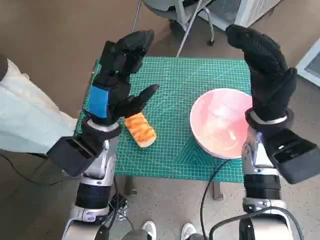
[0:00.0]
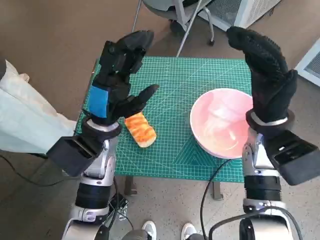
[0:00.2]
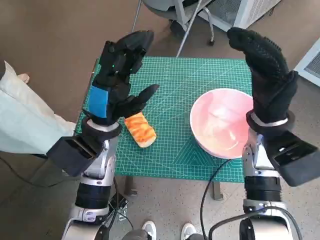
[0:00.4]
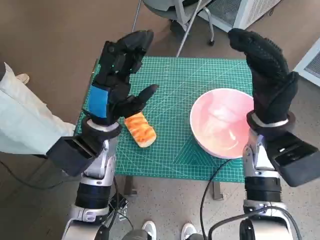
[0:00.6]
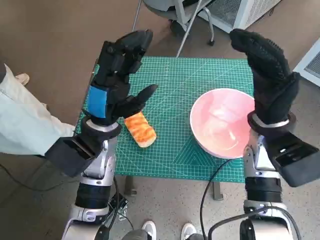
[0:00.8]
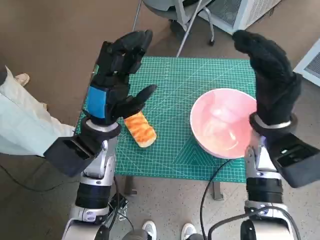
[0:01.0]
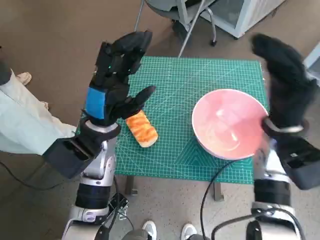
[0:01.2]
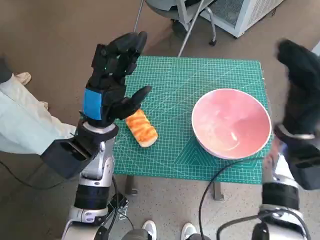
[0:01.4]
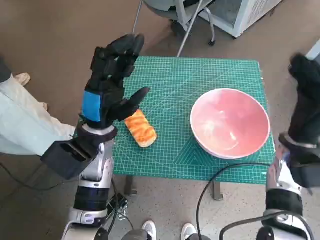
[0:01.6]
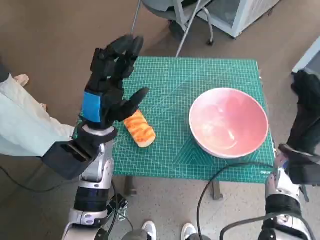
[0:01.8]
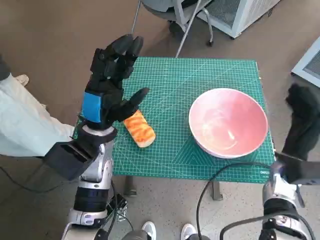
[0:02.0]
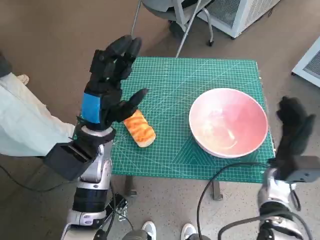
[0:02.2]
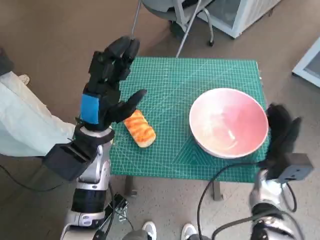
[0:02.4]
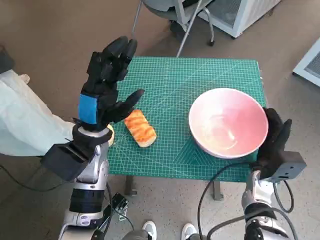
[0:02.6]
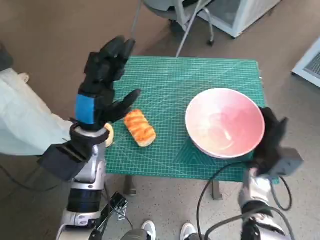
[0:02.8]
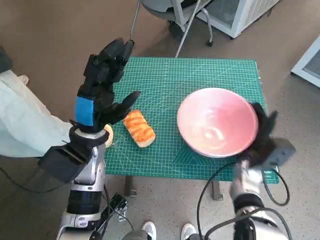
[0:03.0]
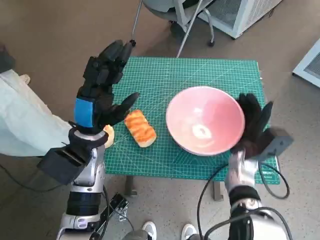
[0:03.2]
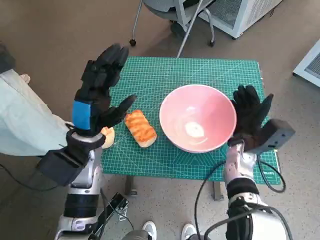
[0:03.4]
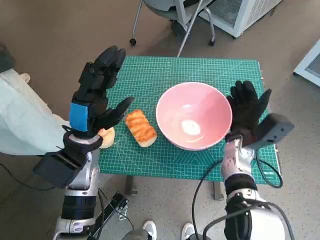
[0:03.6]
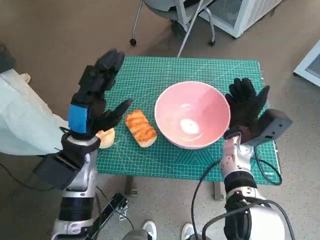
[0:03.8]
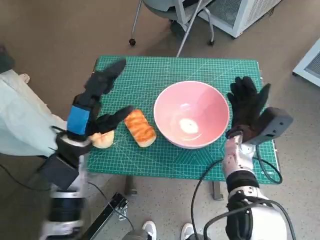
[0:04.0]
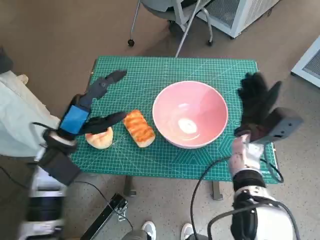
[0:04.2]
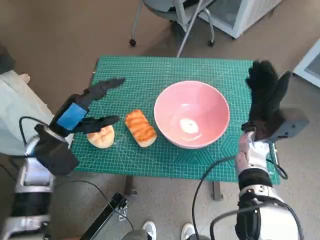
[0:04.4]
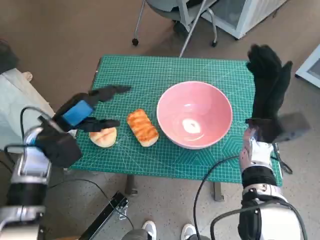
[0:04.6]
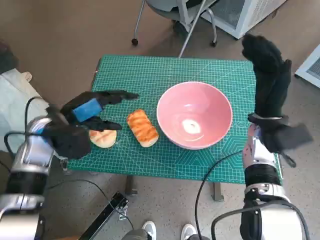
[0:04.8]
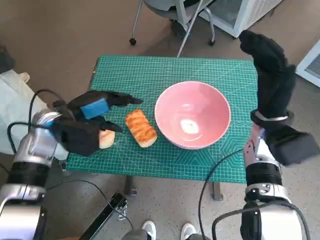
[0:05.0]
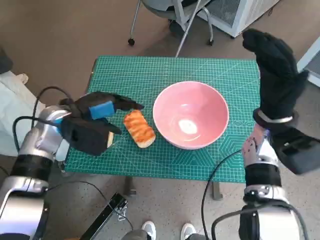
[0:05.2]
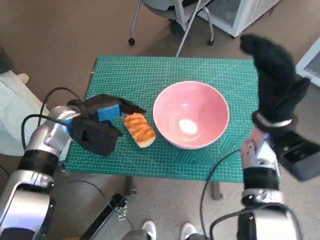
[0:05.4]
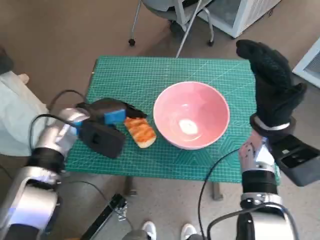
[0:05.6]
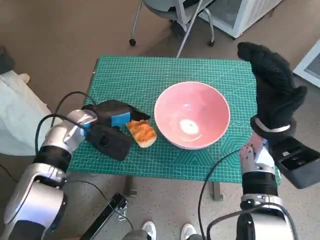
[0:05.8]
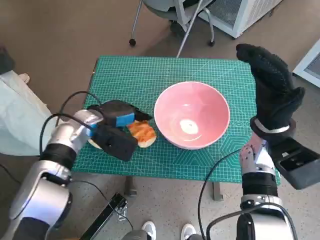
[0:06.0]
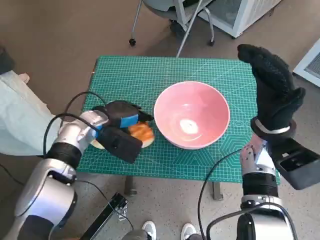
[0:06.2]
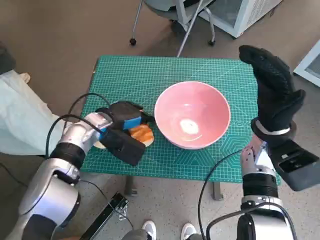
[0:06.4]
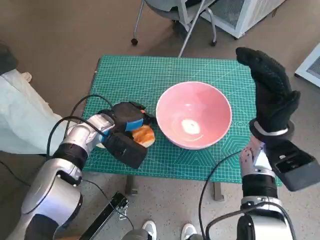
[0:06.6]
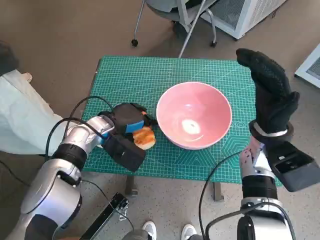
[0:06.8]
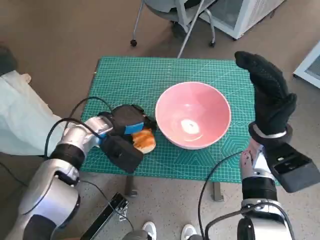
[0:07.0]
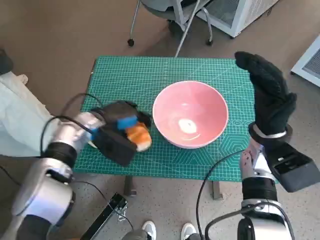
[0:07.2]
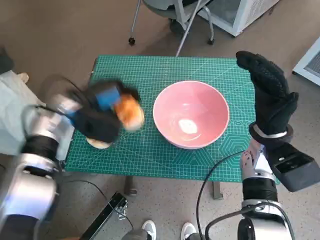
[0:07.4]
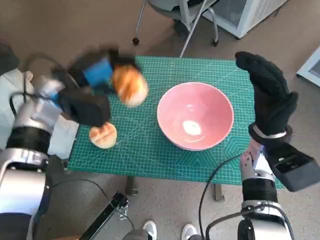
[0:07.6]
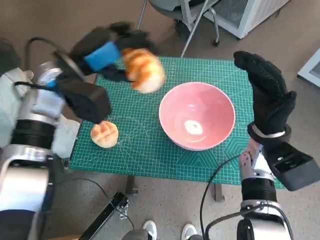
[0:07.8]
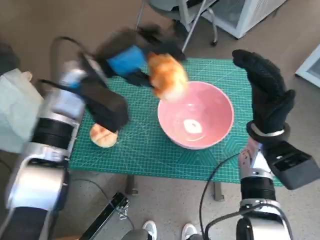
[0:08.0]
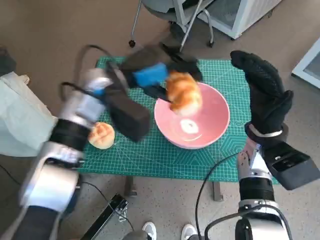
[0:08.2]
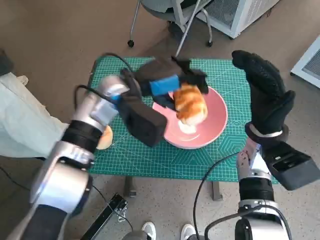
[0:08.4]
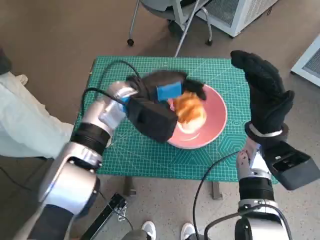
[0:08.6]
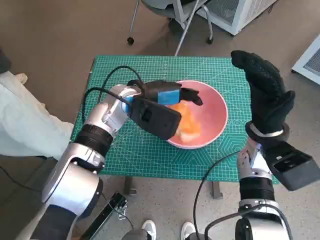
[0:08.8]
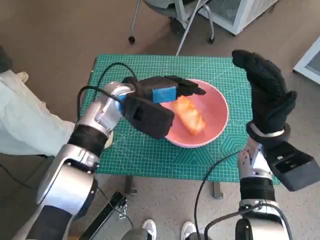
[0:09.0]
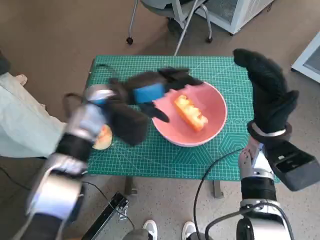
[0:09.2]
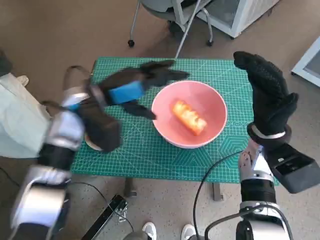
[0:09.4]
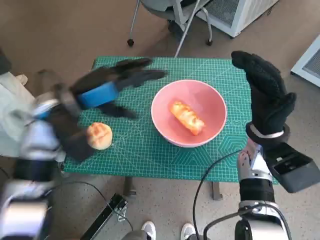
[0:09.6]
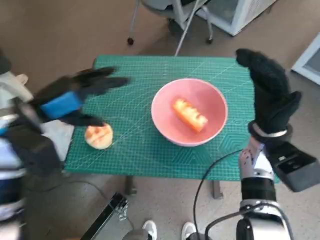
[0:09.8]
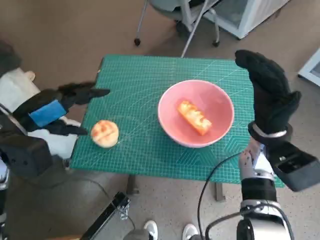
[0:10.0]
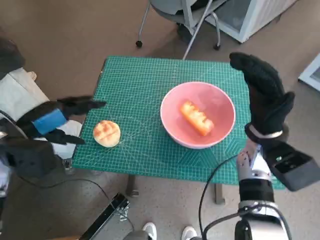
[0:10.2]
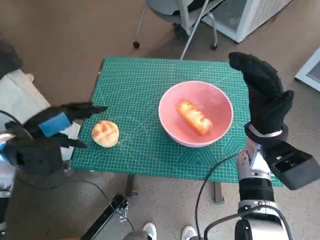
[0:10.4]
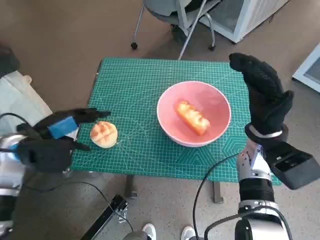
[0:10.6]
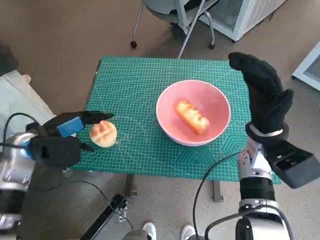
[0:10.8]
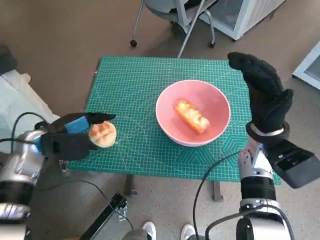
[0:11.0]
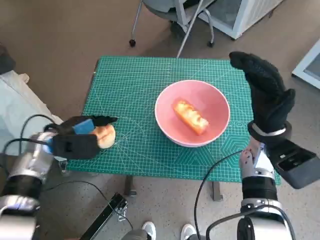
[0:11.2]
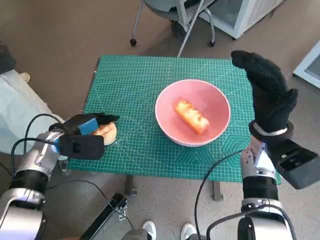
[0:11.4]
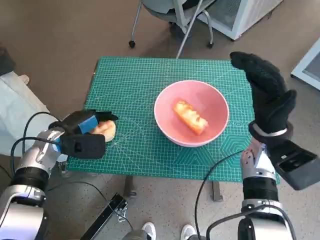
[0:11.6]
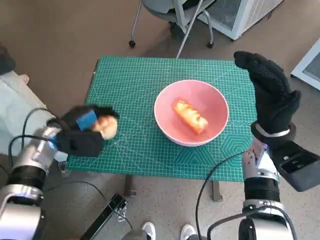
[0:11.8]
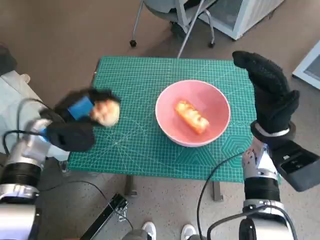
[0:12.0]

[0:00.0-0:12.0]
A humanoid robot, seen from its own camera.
Task of the whole recording: Push the bowl to the center of the table and put the bread into the bowl.
Step, 0:00.0 to 0:04.0: Move the pink bowl to the center of table with right hand.
Step, 0:04.2 to 0:06.8: Grasp the long bread with left hand.
Step, 0:07.0 to 0:08.6: Place the long bread in pink bowl with left hand.
Step, 0:09.0 to 0:11.2: Grasp the round bread with left hand.
0:01.6 to 0:03.0: The right hand goes roughly 10 cm downward.
0:03.0 to 0:04.4: The right hand goes roughly 5 cm upward, while the left hand goes about 10 cm to the left.
0:04.4 to 0:06.0: The left hand shifts roughly 10 cm forward and to the right; the right hand shifts some 5 cm upward.
0:06.0 to 0:07.6: The left hand is displaced upward by roughly 5 cm.
0:07.6 to 0:09.0: The left hand moves to the right, about 10 cm.
0:09.0 to 0:10.4: The left hand shifts approximately 20 cm to the left and backward.
0:10.4 to 0:12.0: The left hand heads forward, covering some 5 cm.

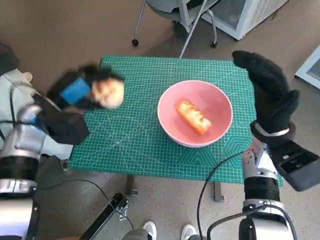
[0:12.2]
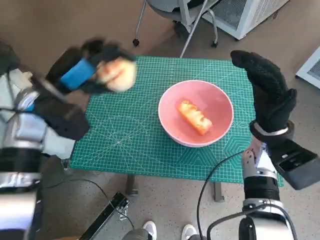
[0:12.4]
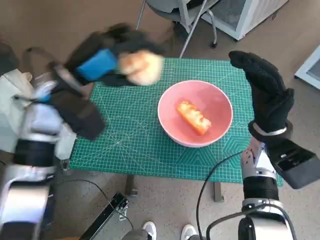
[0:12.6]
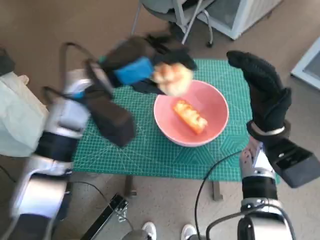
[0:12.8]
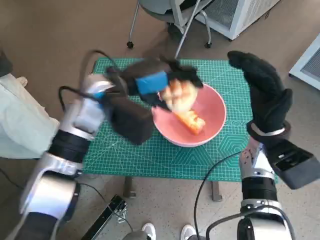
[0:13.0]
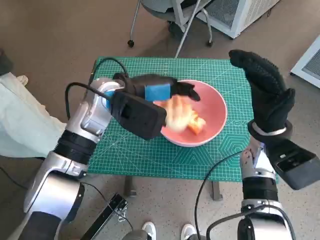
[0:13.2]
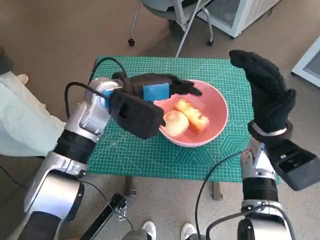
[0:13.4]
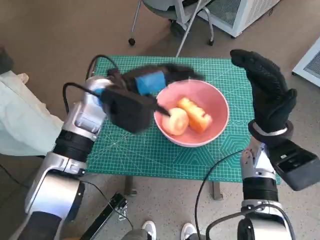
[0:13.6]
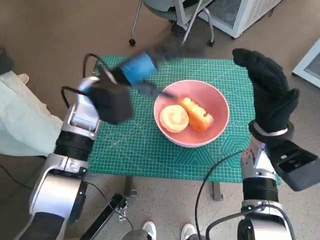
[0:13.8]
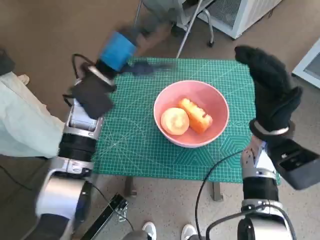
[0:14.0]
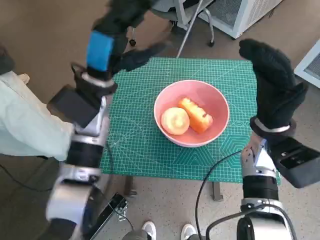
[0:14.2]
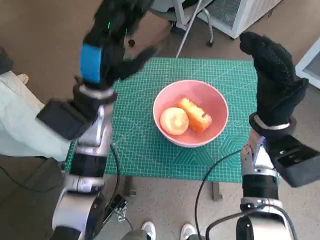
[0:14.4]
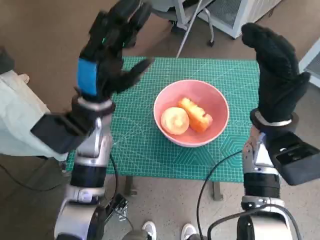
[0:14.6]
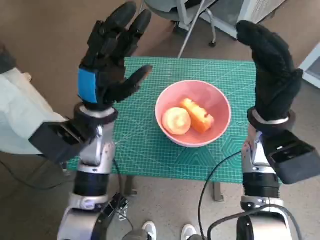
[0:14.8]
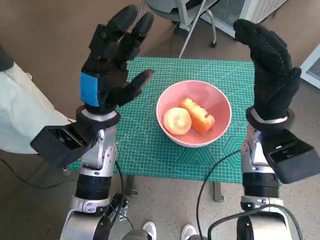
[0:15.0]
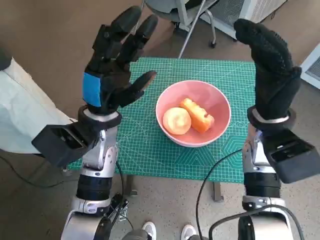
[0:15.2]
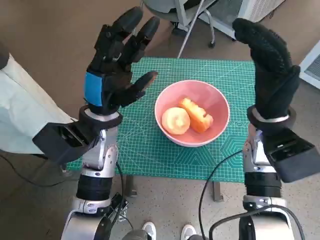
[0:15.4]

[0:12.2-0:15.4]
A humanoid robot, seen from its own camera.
Task of the whole recording: Push the bowl to the center of the table and put the bread into the bowl.
Step, 0:12.2 to 0:13.2: Place the round bread in pink bowl with left hand.
0:12.2 to 0:13.8: The left hand travels to the right by some 10 cm.
0:13.8 to 0:15.4: The left hand is displaced backward by approximately 5 cm.

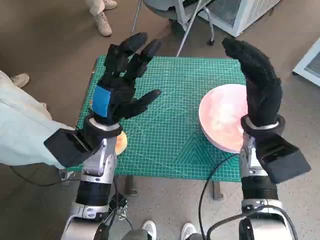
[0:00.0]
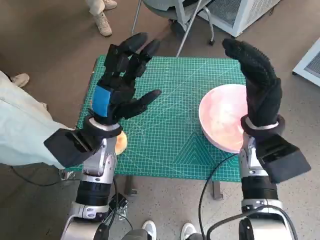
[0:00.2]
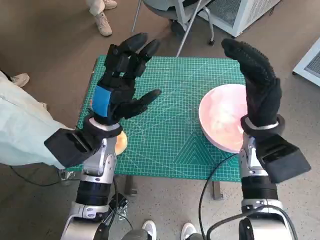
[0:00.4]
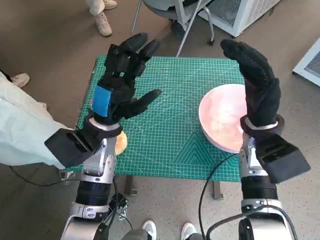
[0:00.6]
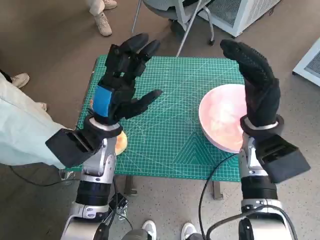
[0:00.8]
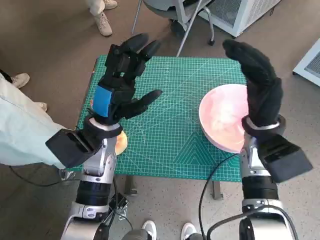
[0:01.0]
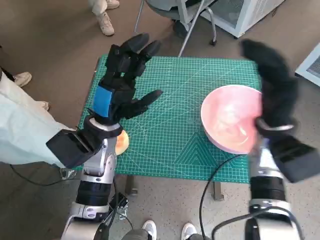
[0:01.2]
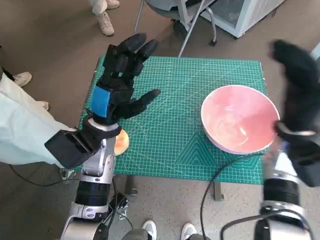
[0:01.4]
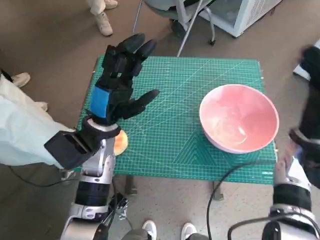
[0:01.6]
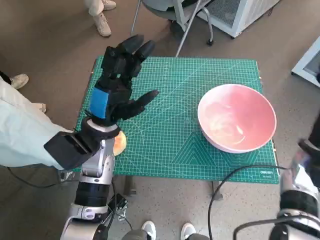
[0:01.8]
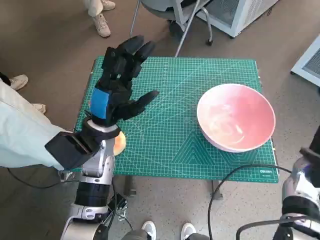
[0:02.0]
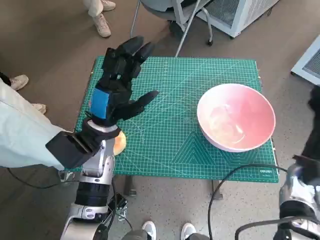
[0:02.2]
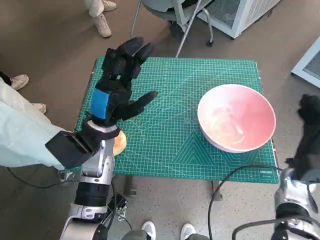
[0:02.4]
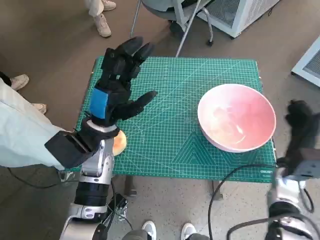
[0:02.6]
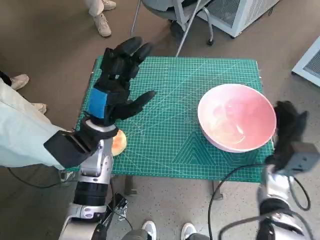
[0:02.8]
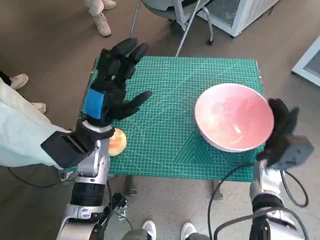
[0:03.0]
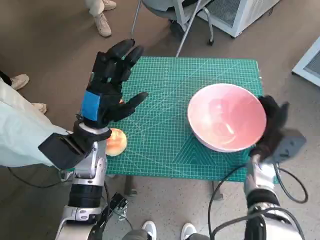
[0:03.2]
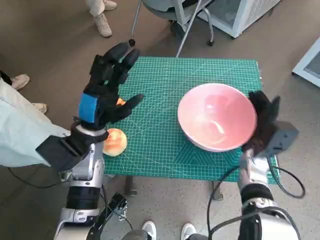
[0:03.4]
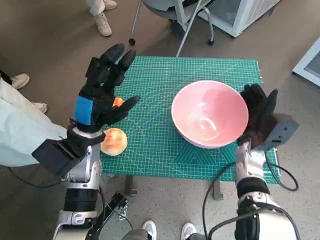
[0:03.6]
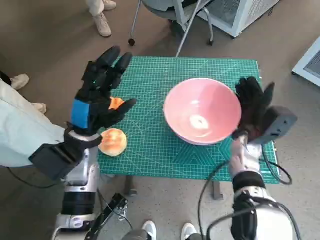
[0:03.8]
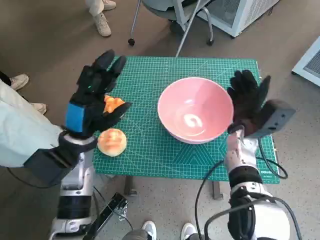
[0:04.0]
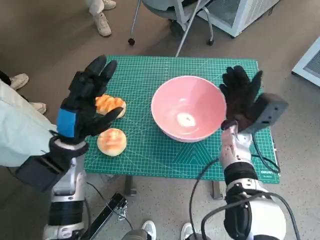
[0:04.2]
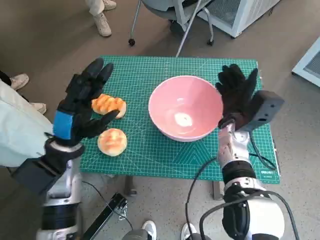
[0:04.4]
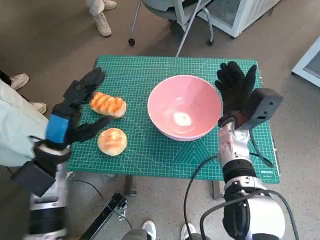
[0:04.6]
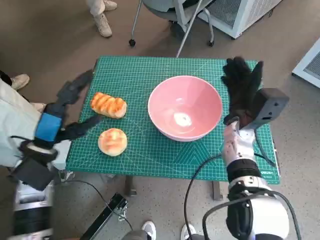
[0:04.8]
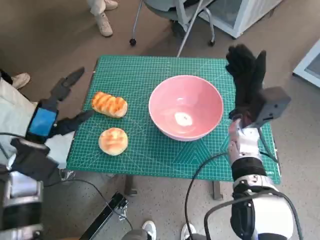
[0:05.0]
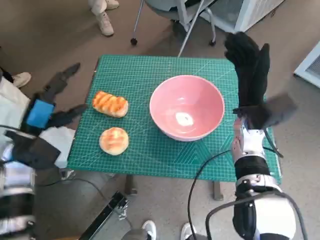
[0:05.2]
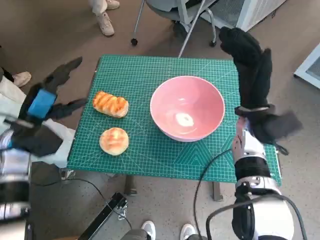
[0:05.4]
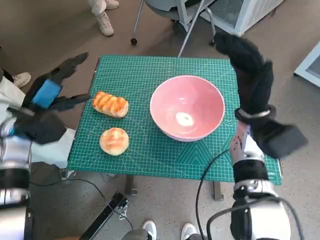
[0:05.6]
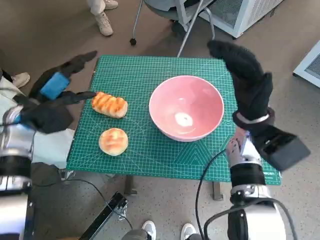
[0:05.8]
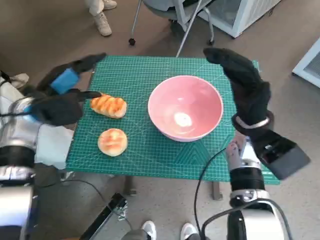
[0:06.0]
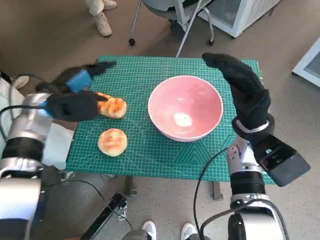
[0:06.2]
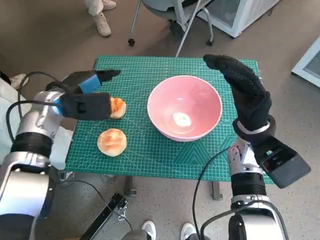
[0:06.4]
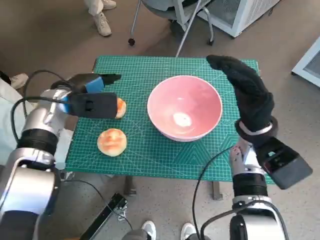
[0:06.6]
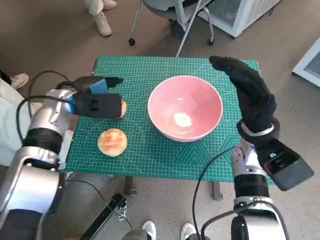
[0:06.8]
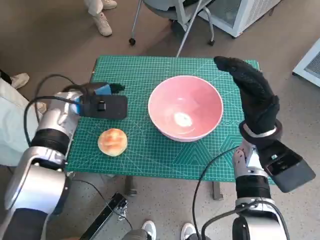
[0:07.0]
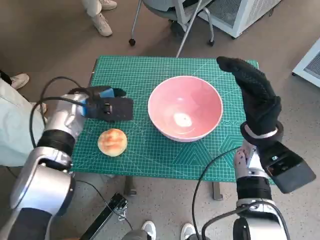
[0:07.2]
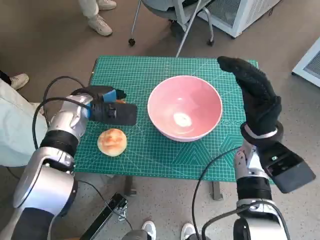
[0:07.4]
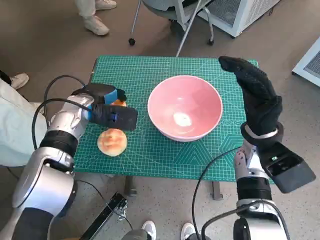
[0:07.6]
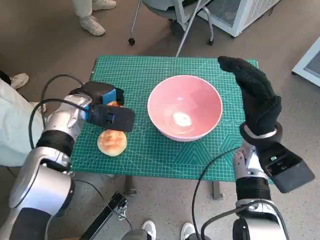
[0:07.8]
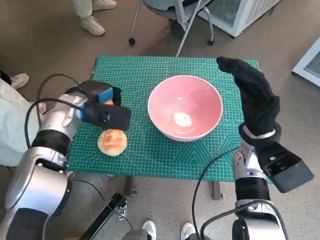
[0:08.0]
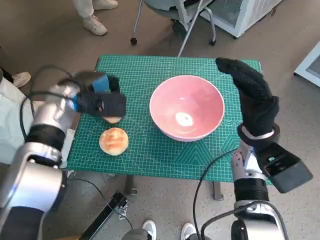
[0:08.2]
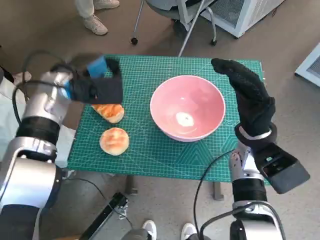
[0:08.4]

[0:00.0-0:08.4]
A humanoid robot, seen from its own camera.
Task of the whole recording: Push the bowl to the center of the table and put the bread into the bowl.
Step, 0:00.0 to 0:04.6: Move the pink bowl to the center of table with right hand.
0:01.4 to 0:02.8: The right hand shifts some 10 cm downward.
0:02.8 to 0:04.2: The left hand travels to the left by roughly 5 cm, while the right hand is displaced to the left, forward and upward by approximately 15 cm.
0:04.2 to 0:05.6: The right hand shifts some 5 cm upward. Meanwhile the left hand is displaced to the left by about 10 cm.
0:05.6 to 0:07.0: The left hand goes approximately 10 cm to the right and forward.
